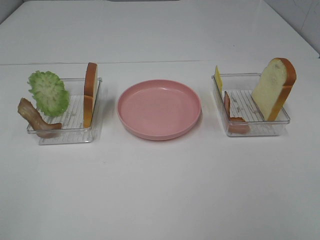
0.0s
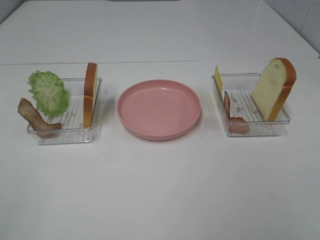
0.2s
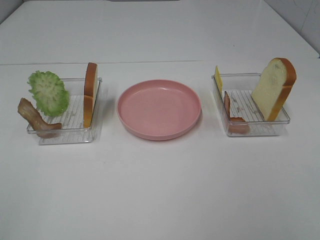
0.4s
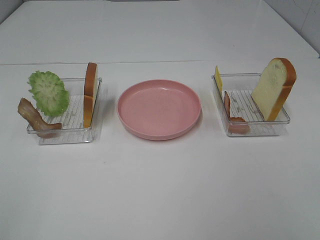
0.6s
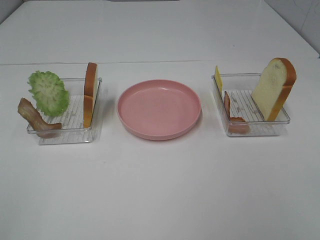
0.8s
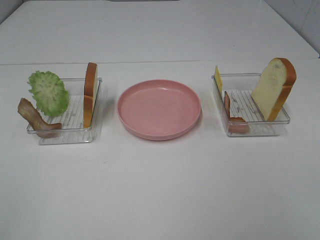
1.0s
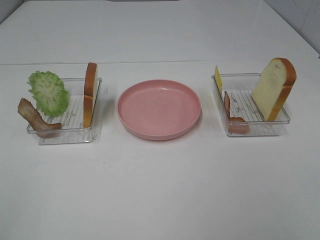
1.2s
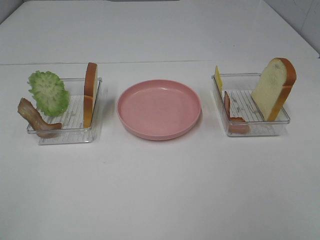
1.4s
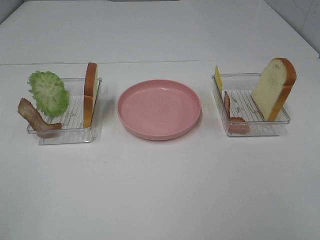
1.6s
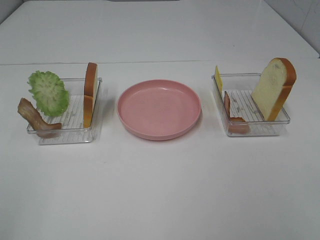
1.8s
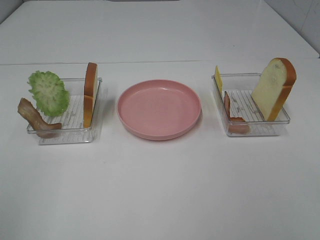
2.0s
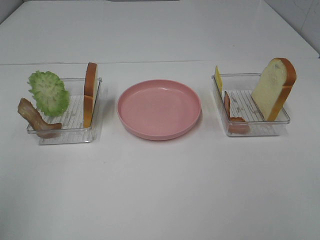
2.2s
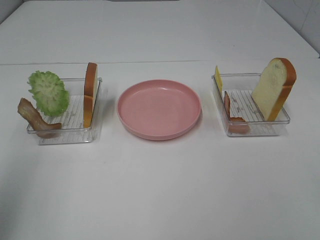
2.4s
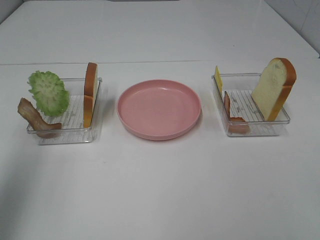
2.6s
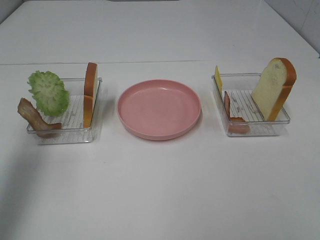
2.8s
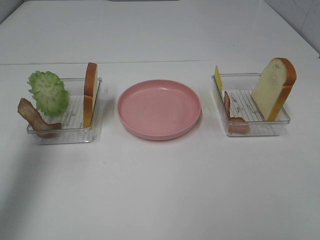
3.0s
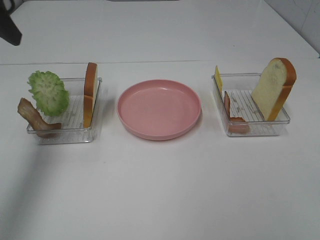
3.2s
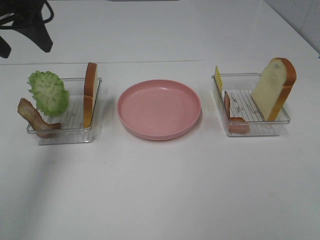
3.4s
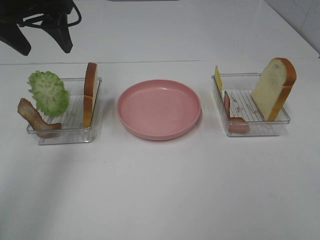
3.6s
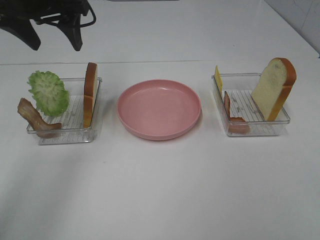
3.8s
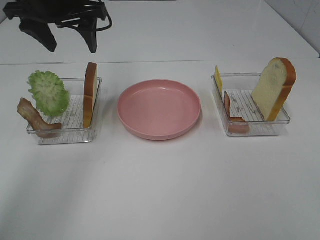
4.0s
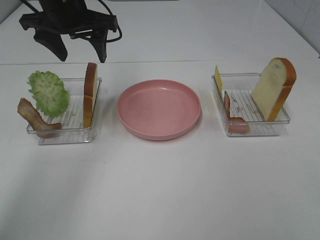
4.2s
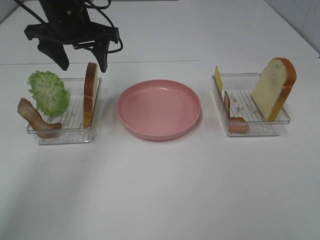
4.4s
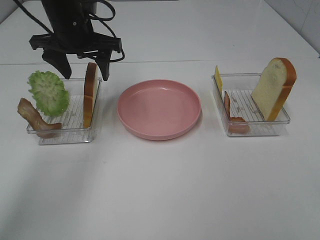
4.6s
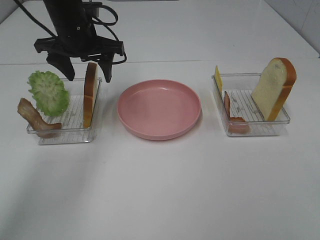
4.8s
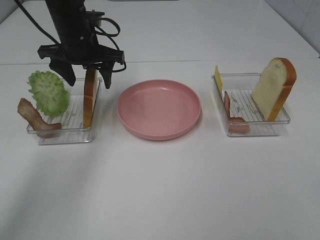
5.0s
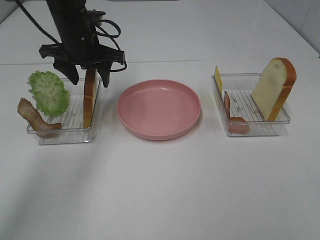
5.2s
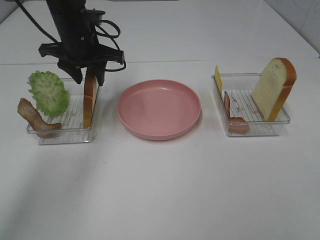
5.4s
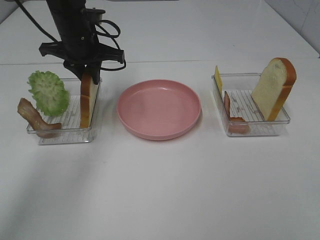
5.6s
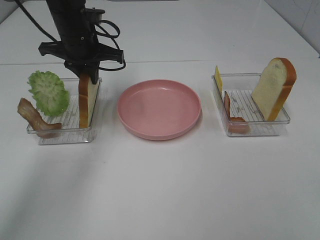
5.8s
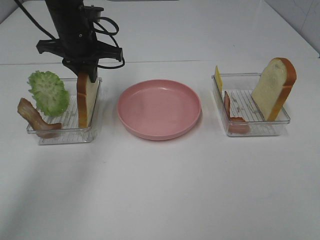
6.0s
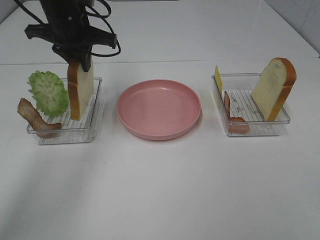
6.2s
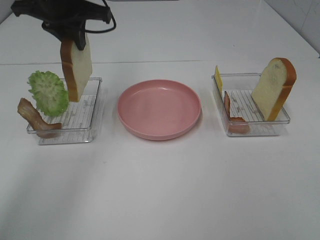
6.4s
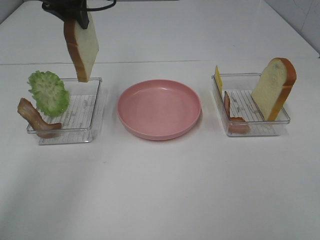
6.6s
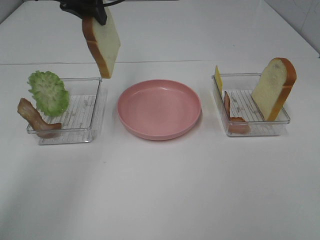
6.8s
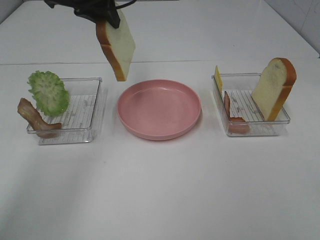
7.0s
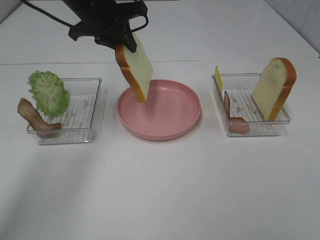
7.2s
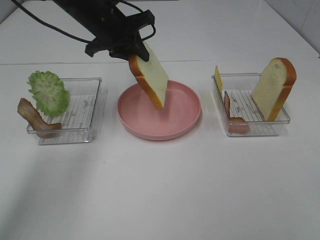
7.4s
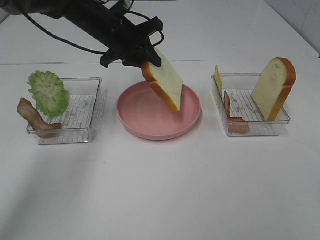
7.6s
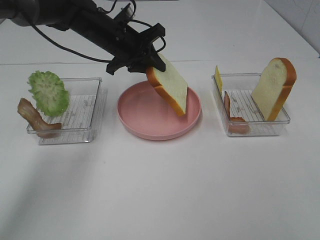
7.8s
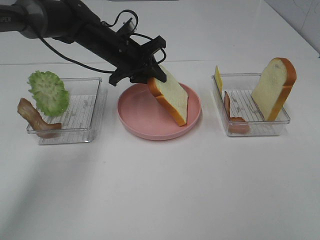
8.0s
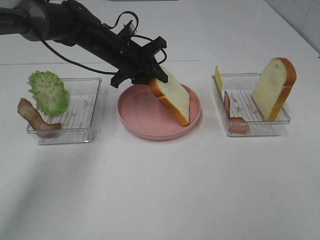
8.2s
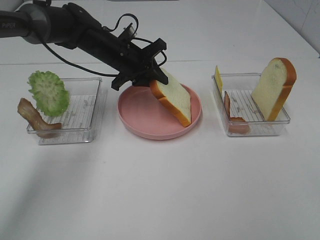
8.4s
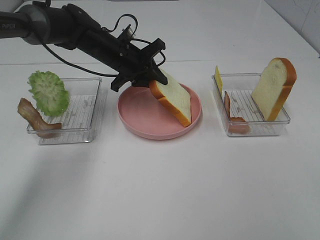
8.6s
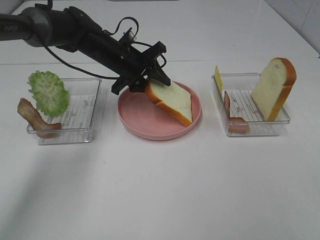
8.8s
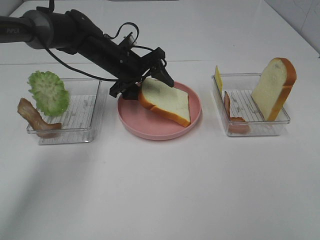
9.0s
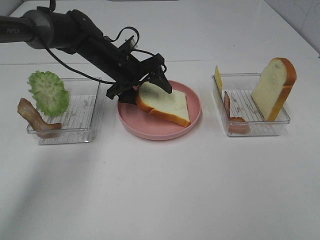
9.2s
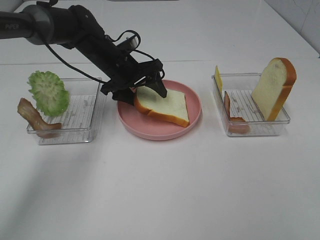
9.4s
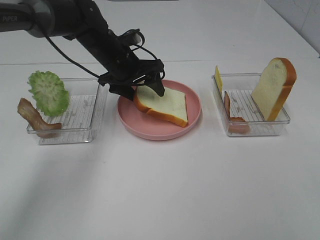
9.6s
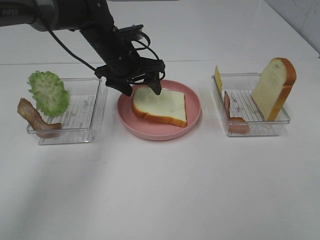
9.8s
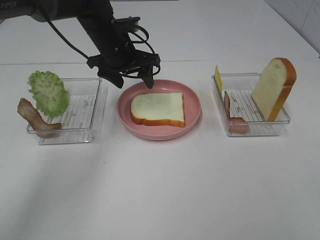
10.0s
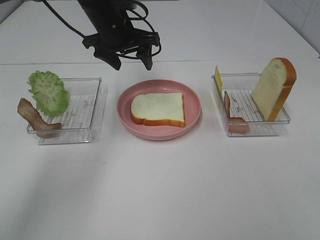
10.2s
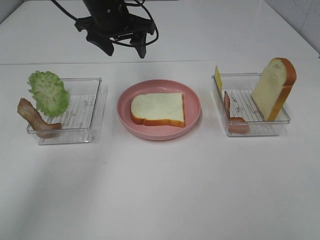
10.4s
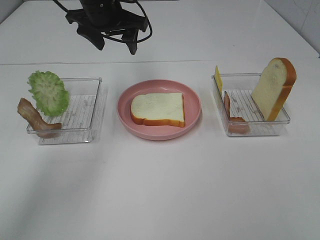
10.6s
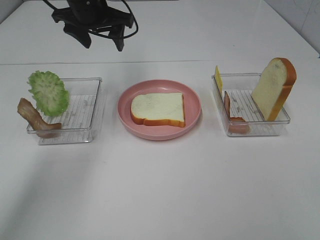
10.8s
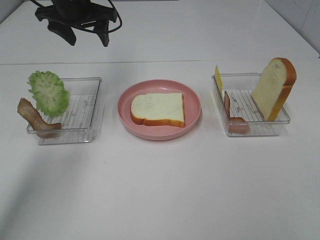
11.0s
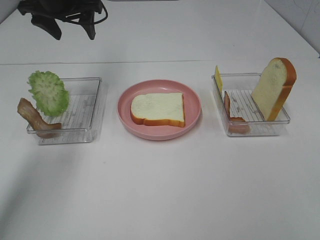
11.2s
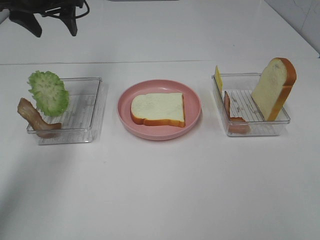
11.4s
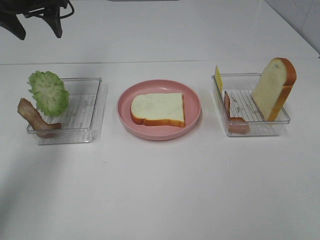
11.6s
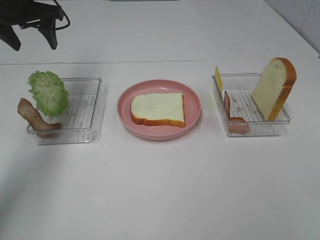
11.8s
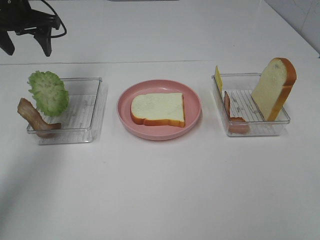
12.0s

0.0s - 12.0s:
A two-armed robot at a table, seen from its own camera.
Task of the whole recording: Make sandwiches.
Step, 0.0s - 5.8s: Left hand:grab the bread slice.
Step, 6.0s - 10.0s: Left hand:place the bread slice on the plate.
0.0s - 1.6s: Both grippers stay put.
1.6s - 3.0s: The left gripper goes about 30 cm forward.
3.0s - 4.4s: The left gripper goes roughly 25 cm forward, to the right and downward.
4.4s - 6.0s: The left gripper closes its fingers.
6.0s - 7.6s: The left gripper travels upward and back again, approximately 10 cm each way.
7.6s - 9.0s: The left gripper heads downward, covering approximately 5 cm, and opens up.
9.0s - 10.4s: The left gripper heads upward, covering approximately 10 cm.
10.4s - 12.0s: The left gripper moves to the left, about 15 cm.

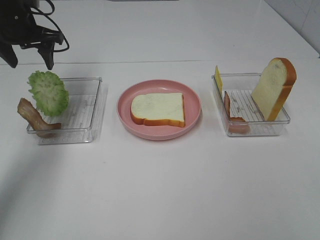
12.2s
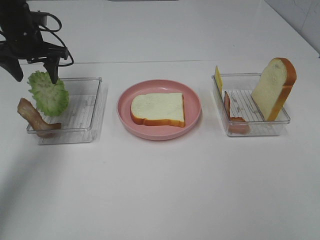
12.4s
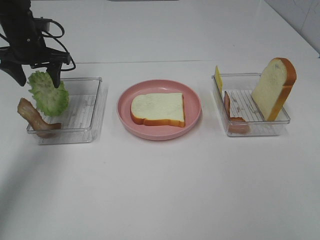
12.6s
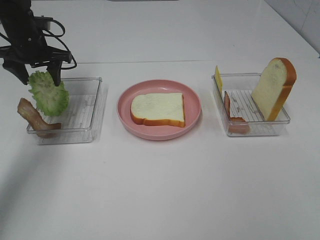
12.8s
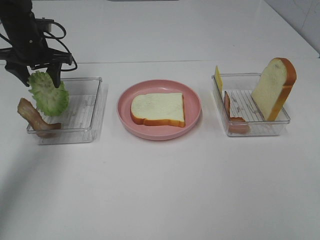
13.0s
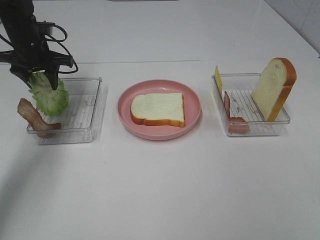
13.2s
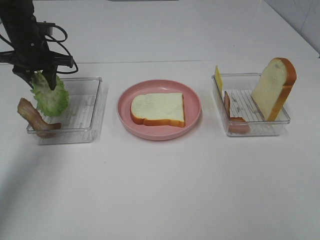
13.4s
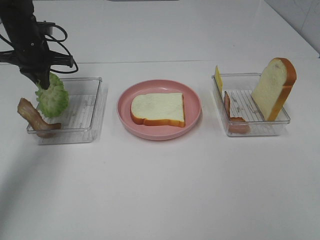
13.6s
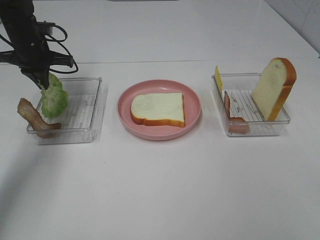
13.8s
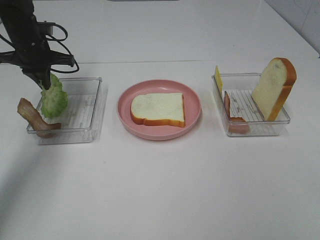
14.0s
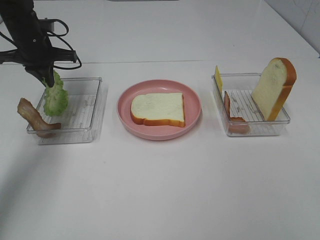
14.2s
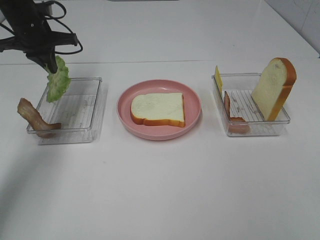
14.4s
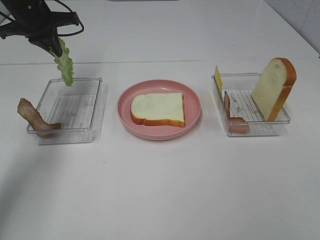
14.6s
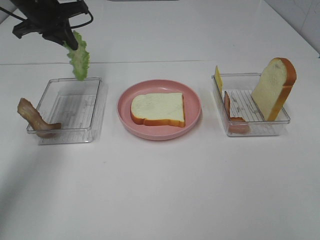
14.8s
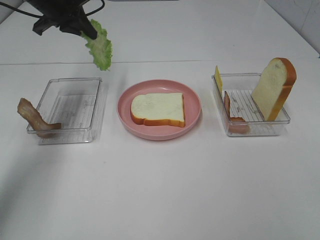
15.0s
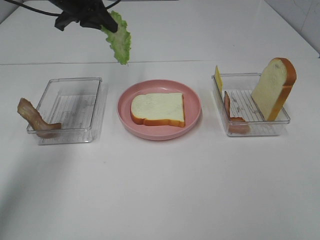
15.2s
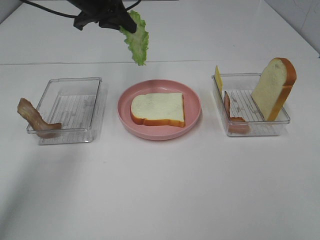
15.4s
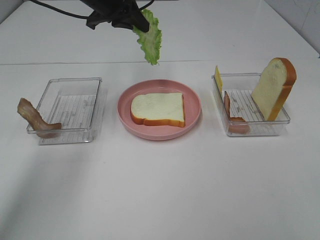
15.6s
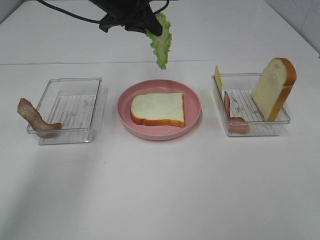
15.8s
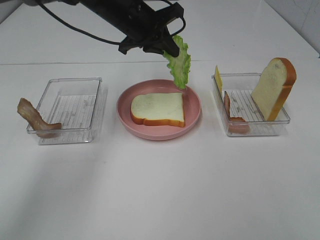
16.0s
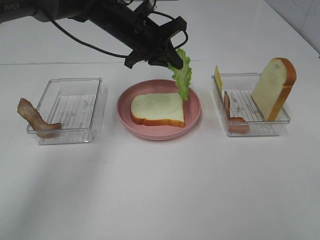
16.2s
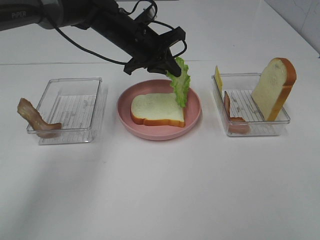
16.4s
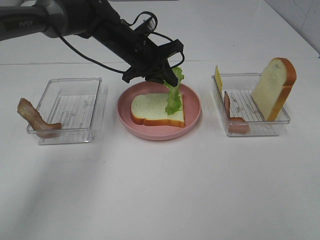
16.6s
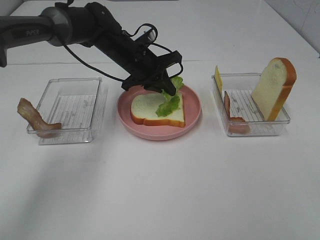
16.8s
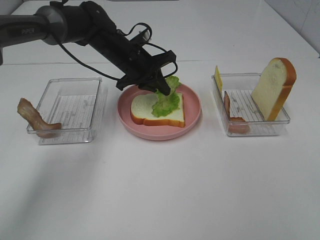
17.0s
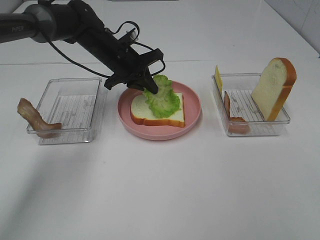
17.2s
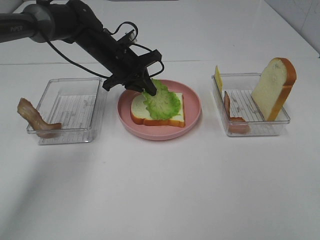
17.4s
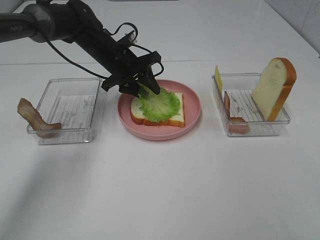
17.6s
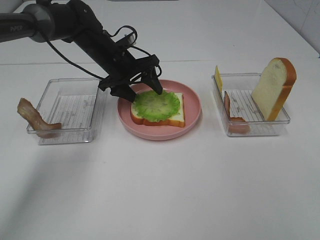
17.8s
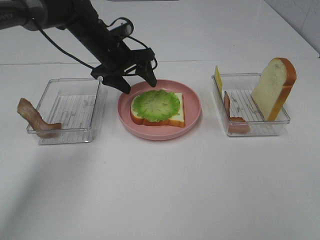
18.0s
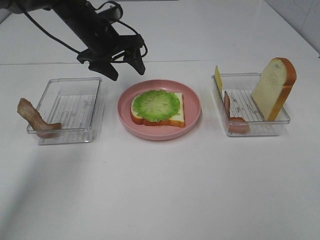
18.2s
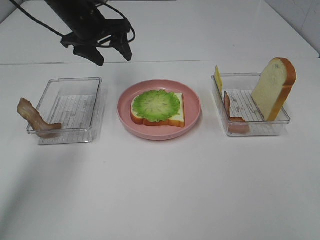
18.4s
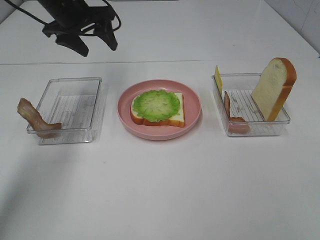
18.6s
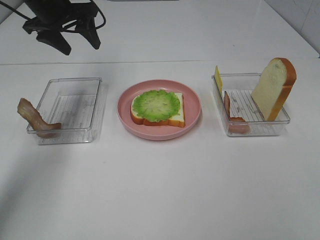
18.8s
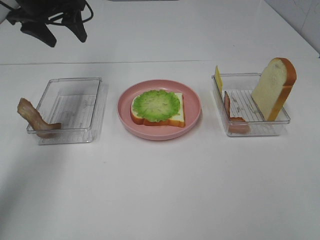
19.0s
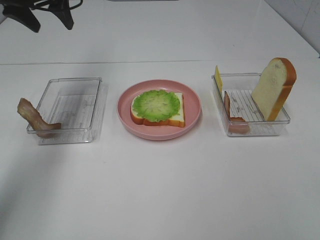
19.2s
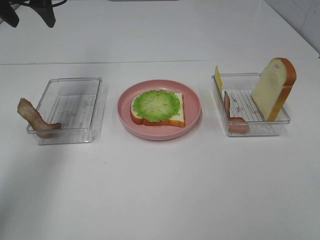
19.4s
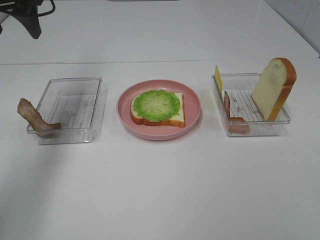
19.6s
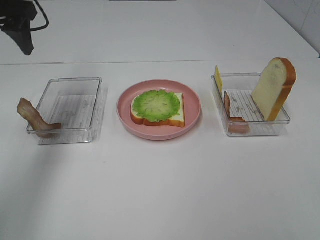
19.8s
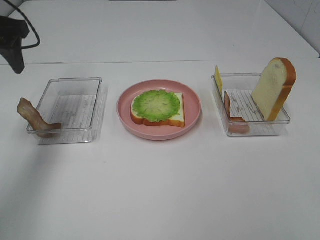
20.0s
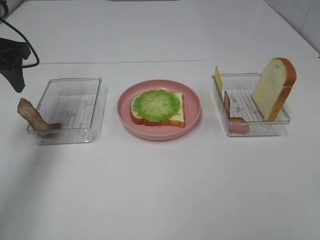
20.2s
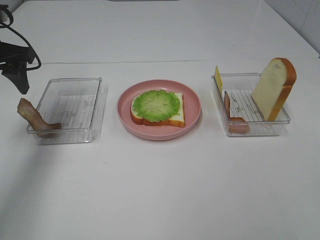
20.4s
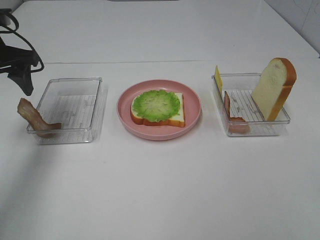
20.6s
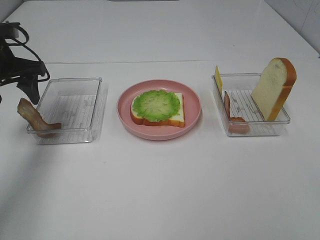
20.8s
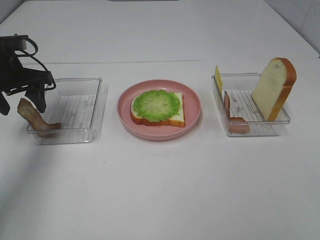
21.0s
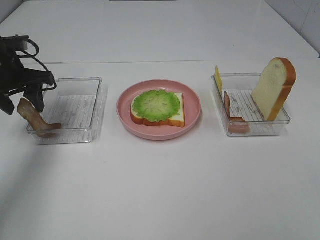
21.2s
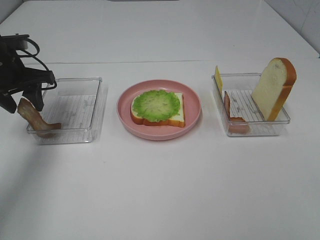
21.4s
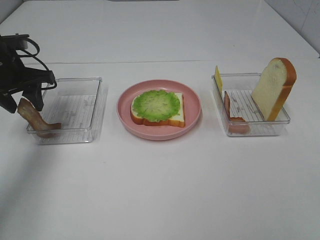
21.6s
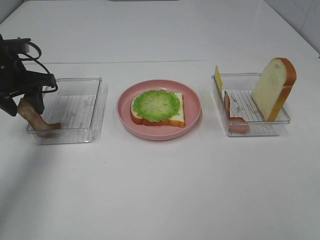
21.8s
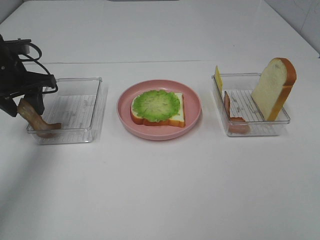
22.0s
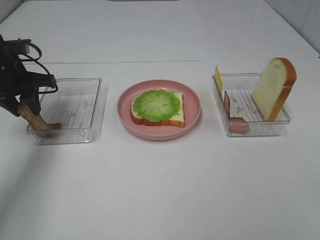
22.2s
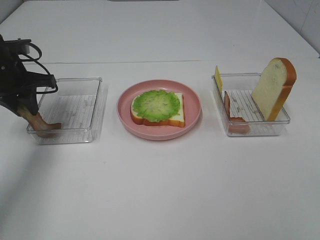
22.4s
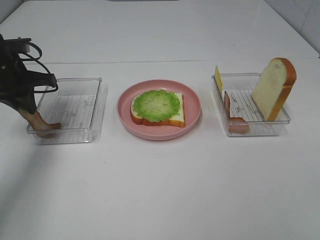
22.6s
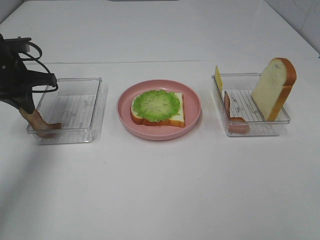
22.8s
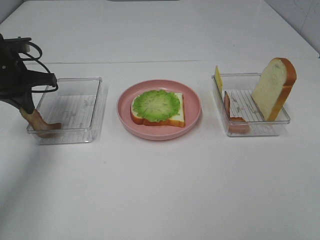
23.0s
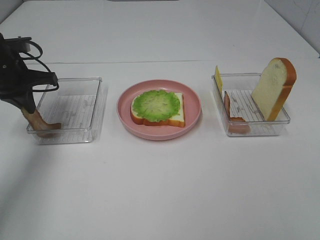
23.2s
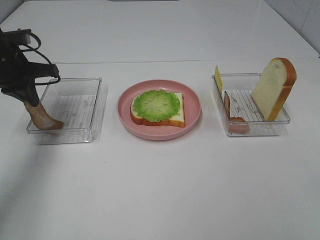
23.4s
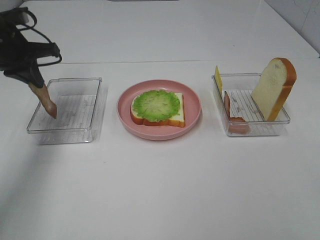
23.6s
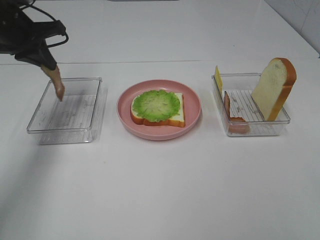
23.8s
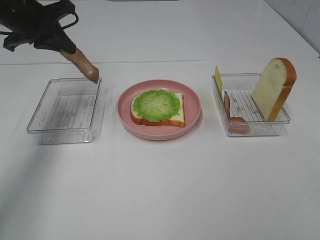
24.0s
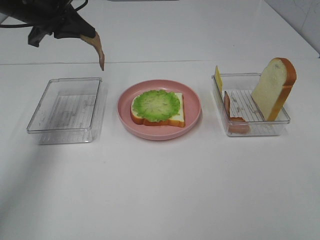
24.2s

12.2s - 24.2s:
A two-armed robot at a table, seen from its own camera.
Task of the whole recording: Make sandwiches.
Step, 14.2s - 18.4s: Left hand:place the lettuce slice on the bread slice.
Step, 18.6s - 23.2s: Left hand:grab the bacon.
12.2s - 13.8s: The left gripper shifts some 5 cm downward, and closes its fingers.
13.8s - 15.2s: The left gripper travels upward and to the right by roughly 15 cm.
15.2s - 16.6s: The left gripper shifts about 15 cm to the right and downward.
16.6s - 18.2s: The left gripper is displaced to the left by about 10 cm, and opens.
18.2s - 19.8s: The left gripper heads to the left, upward and backward, covering about 20 cm.
19.8s - 21.2s: The left gripper moves downward, about 15 cm.
21.2s - 22.6s: The left gripper closes.
22.6s - 24.2s: The left gripper shifts about 10 cm upward and to the right.
